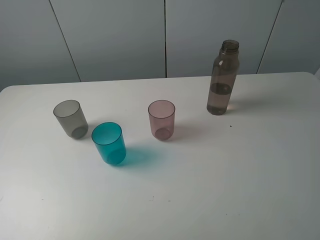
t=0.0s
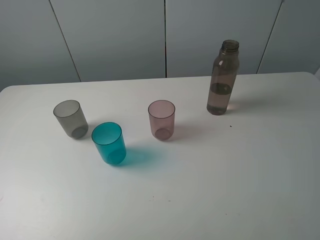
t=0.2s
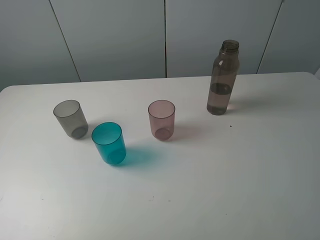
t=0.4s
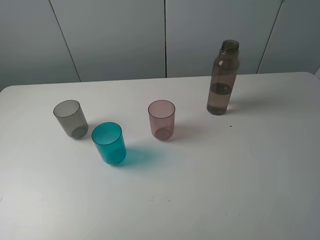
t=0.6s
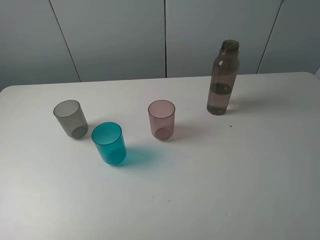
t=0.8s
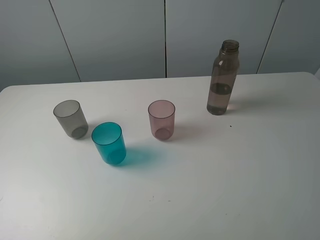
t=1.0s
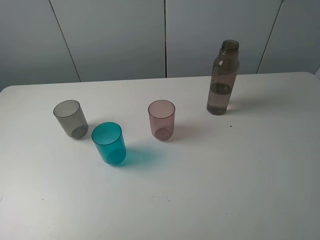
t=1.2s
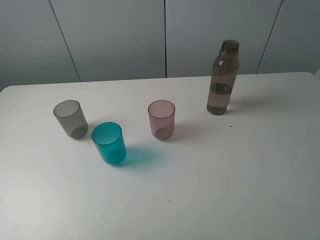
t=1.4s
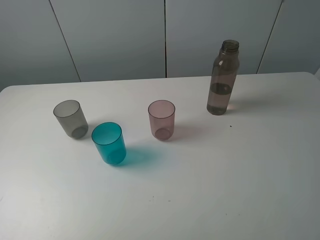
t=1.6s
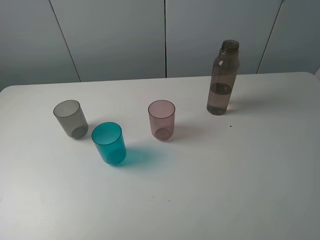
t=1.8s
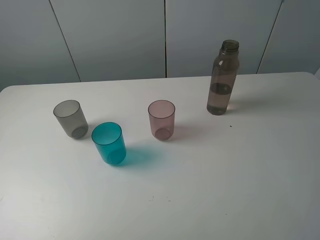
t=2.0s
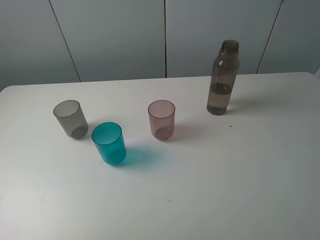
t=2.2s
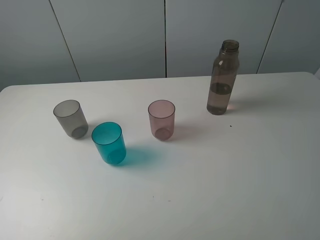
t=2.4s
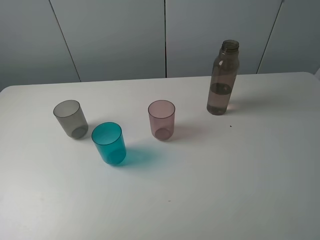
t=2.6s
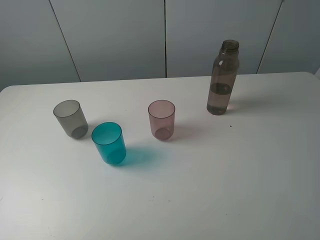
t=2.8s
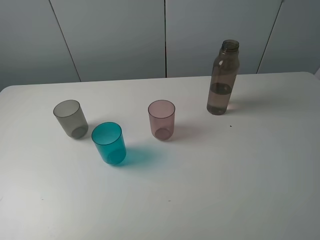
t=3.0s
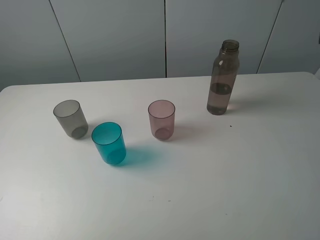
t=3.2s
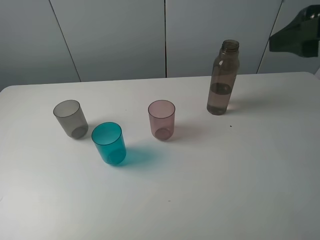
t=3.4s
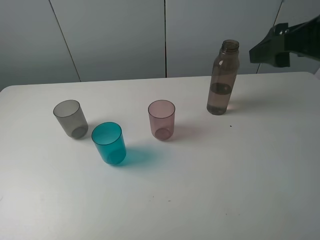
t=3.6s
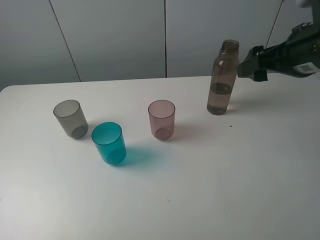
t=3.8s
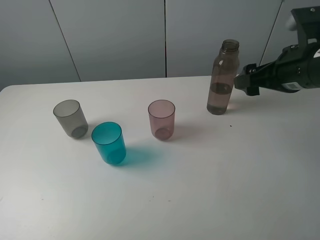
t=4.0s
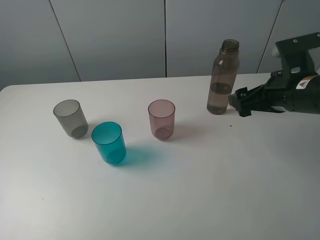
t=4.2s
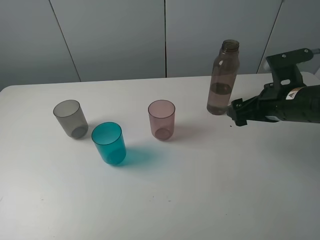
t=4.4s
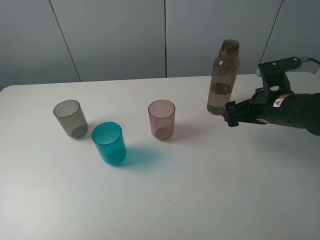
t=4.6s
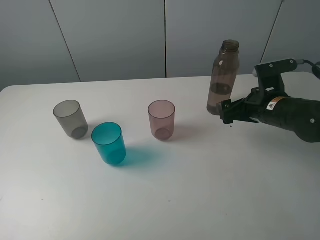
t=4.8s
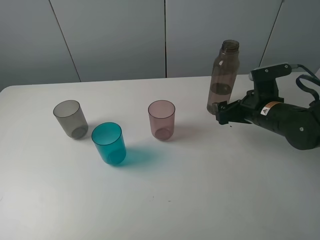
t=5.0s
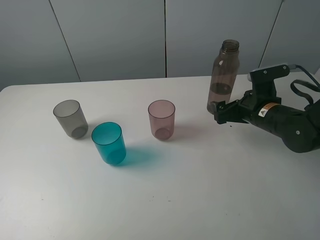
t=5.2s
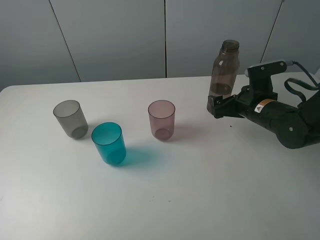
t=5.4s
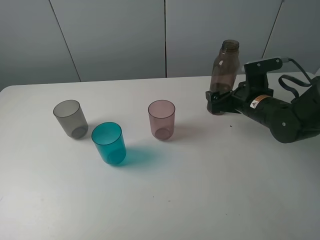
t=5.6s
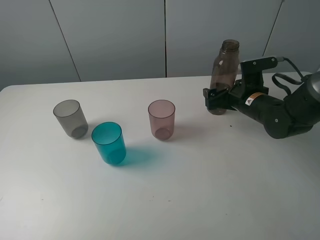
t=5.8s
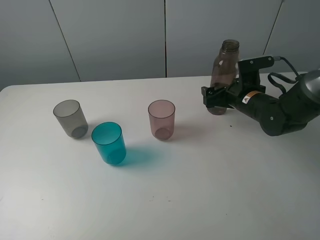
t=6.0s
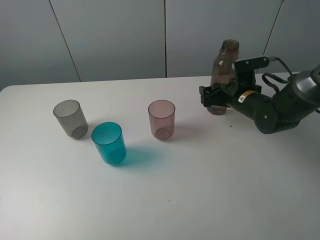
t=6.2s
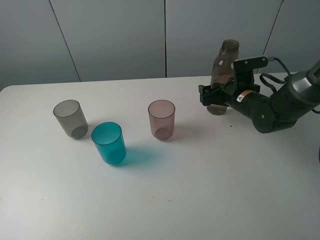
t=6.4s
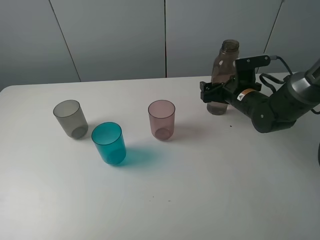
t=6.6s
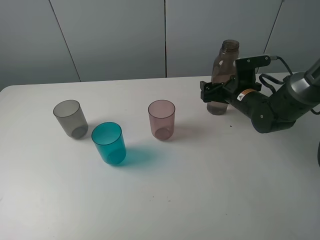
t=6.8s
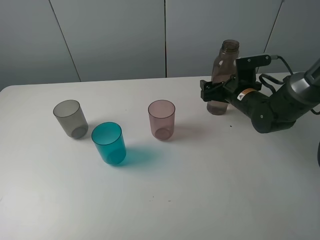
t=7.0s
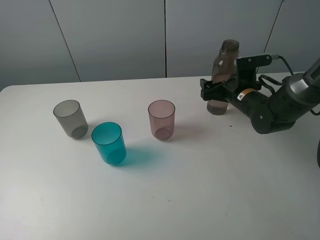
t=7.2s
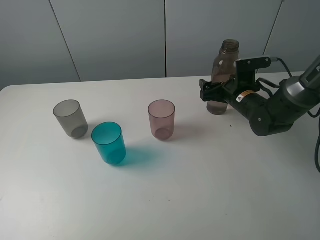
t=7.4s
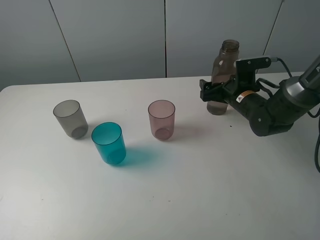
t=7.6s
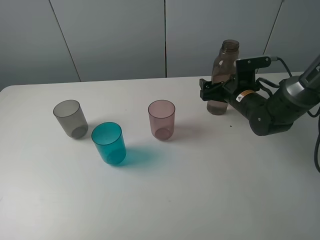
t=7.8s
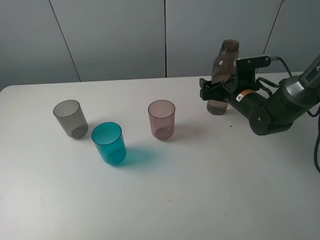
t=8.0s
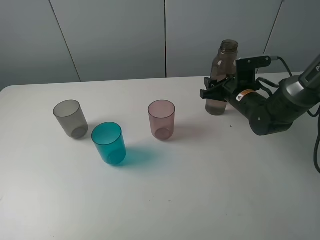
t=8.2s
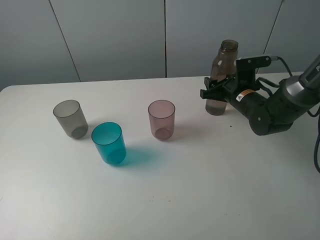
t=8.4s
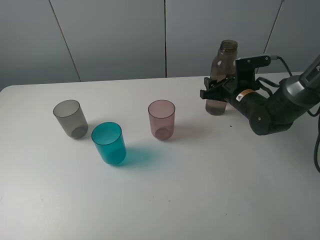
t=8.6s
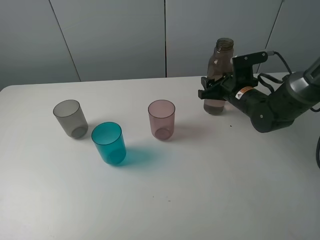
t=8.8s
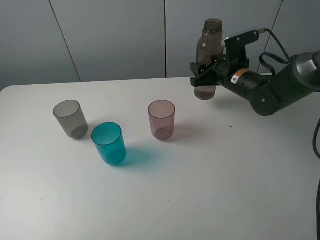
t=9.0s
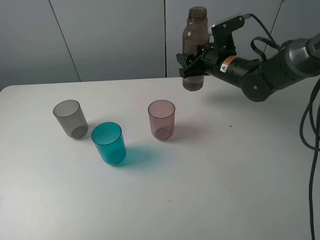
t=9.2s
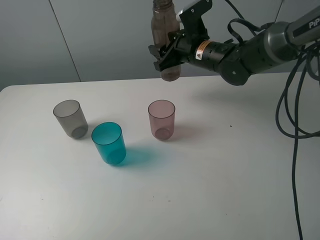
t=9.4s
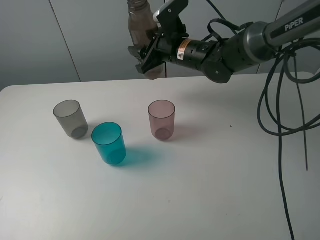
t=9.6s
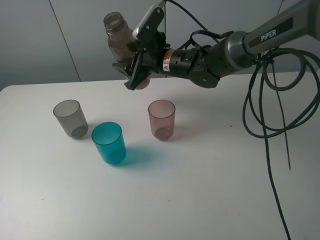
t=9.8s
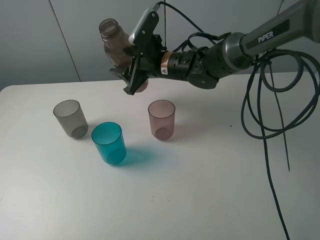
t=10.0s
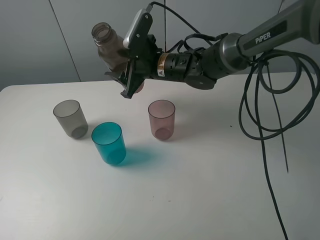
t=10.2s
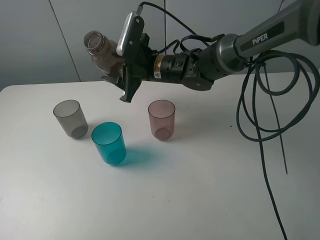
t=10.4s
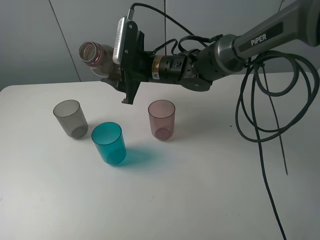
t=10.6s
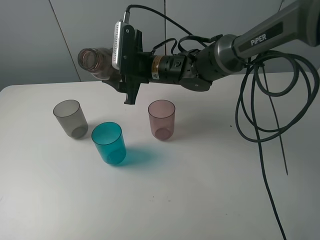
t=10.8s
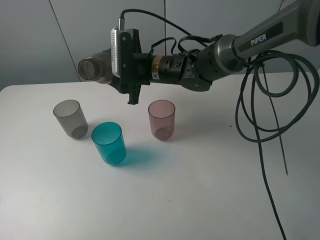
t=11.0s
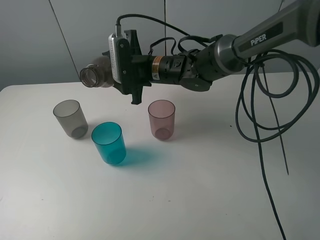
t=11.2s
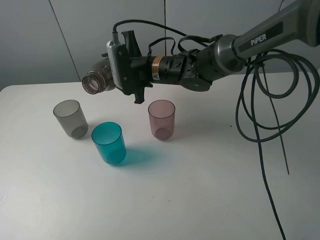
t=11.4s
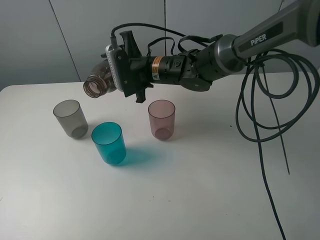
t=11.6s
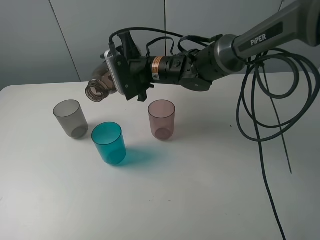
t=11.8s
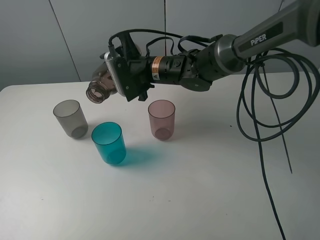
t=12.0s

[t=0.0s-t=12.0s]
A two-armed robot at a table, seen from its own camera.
Task of the whole recording: pick up the bottle filled with water and pour water into the middle cup of the three cups.
Step, t=0.0s to t=8.8s: Grasp the brown bottle with the right gripper.
t=0.0s to t=1.6s: Neither gripper changes place.
t=3.0s to t=4.4s: The right gripper travels downward and forward by approximately 25 cm.
t=4.4s to t=6.0s: The right gripper is displaced forward and downward by about 10 cm.
t=6.0s to t=7.6s: The grippers move only a little.
t=7.6s to t=9.0s: The right gripper heads upward, covering approximately 5 cm, and closes its fingers.
t=9.0s to t=10.4s: The right gripper moves to the left, some 15 cm.

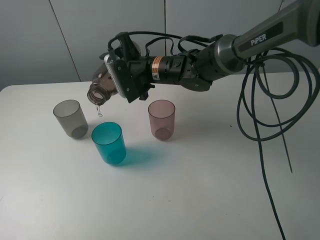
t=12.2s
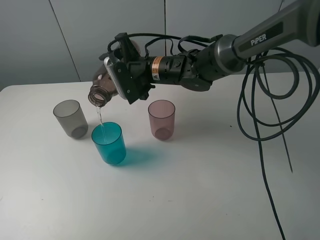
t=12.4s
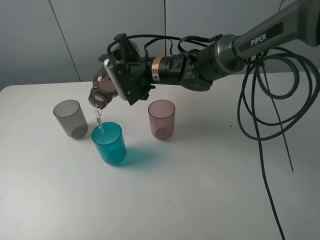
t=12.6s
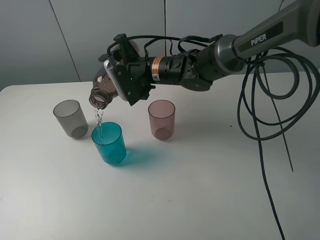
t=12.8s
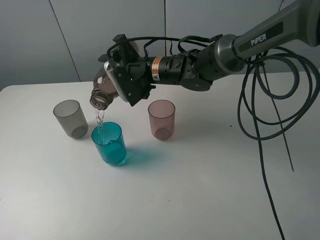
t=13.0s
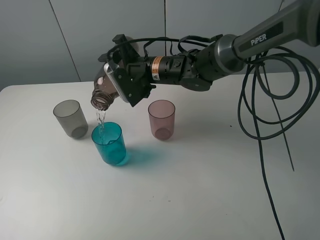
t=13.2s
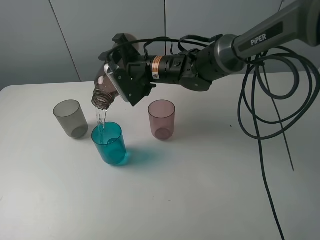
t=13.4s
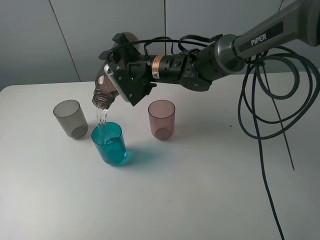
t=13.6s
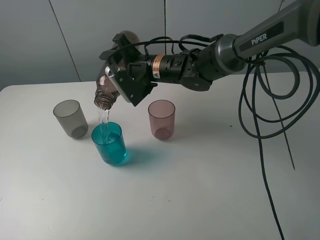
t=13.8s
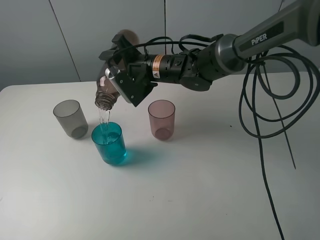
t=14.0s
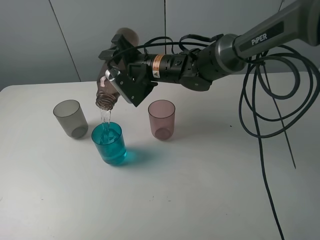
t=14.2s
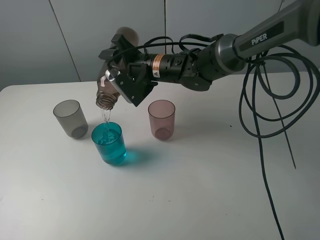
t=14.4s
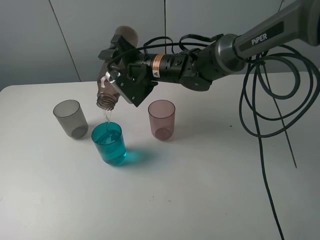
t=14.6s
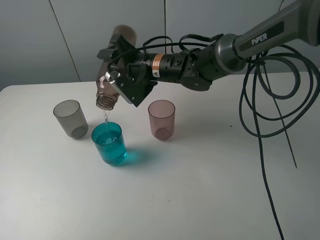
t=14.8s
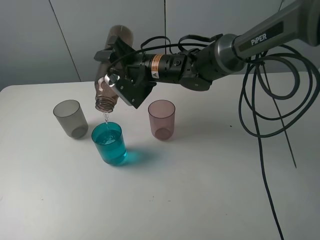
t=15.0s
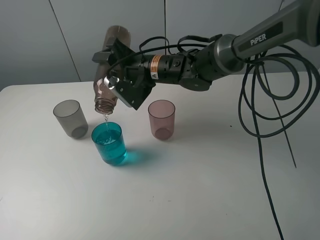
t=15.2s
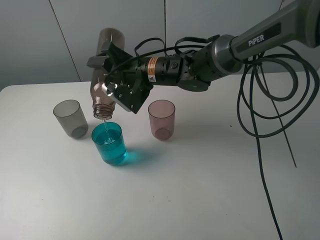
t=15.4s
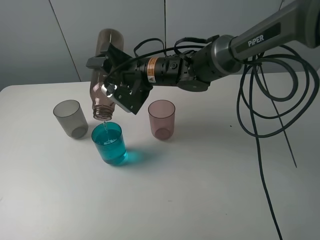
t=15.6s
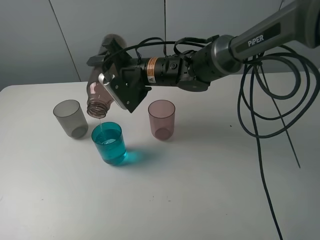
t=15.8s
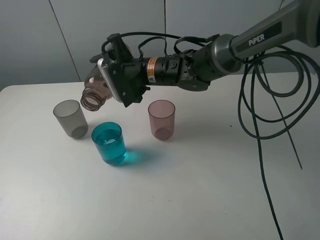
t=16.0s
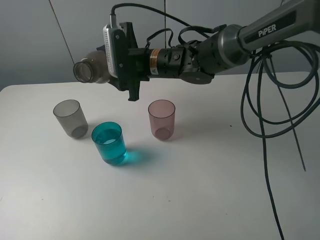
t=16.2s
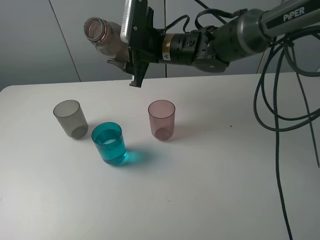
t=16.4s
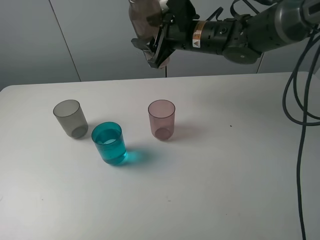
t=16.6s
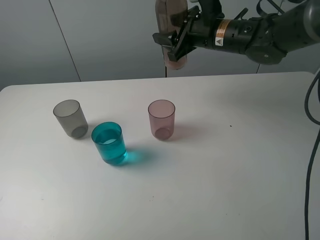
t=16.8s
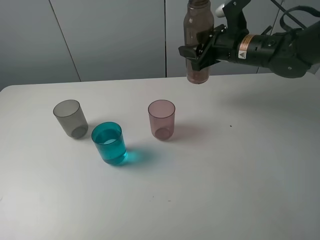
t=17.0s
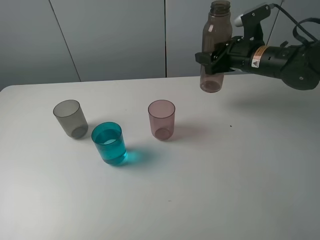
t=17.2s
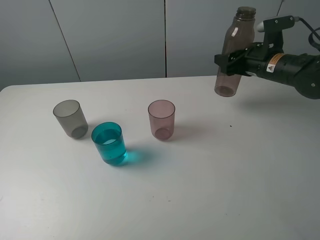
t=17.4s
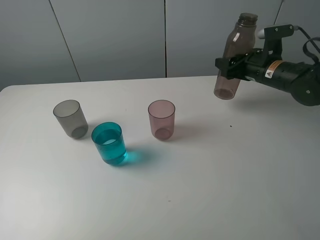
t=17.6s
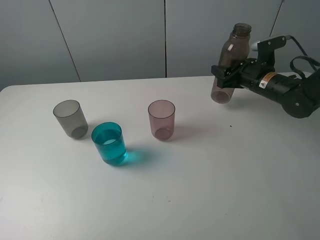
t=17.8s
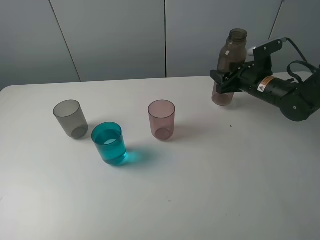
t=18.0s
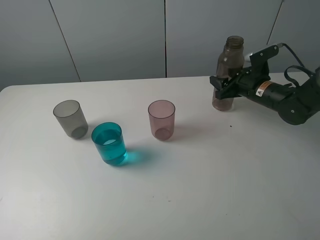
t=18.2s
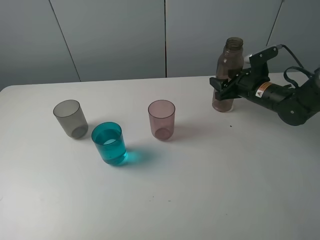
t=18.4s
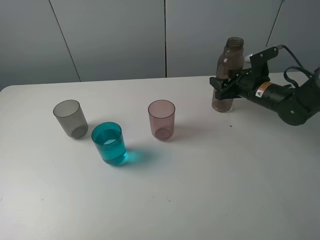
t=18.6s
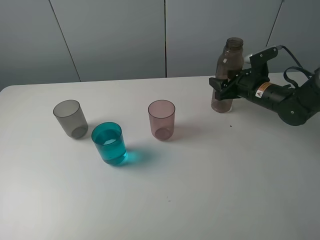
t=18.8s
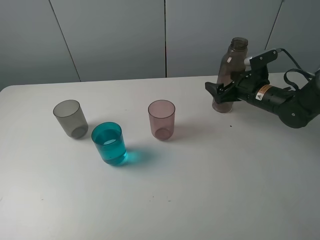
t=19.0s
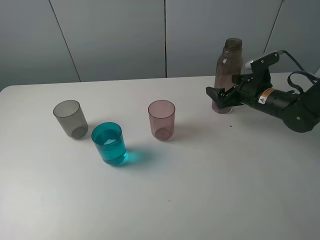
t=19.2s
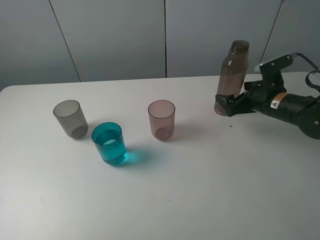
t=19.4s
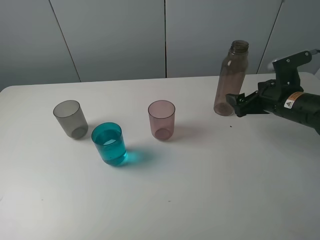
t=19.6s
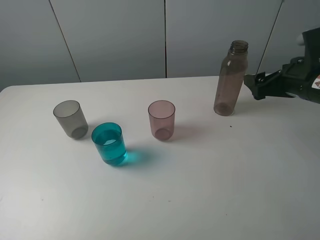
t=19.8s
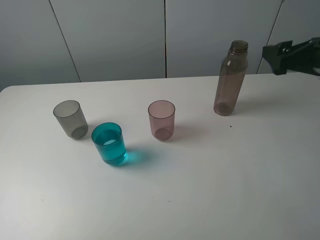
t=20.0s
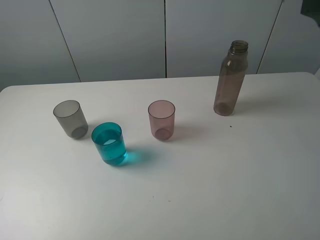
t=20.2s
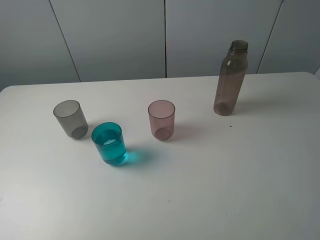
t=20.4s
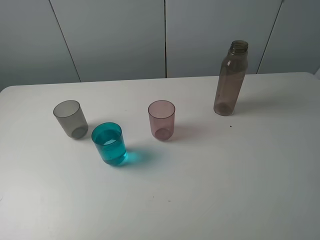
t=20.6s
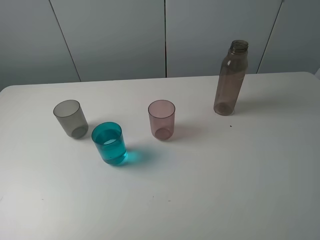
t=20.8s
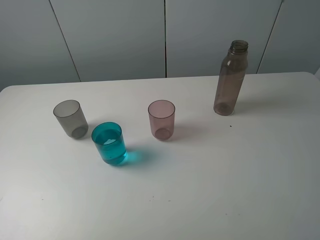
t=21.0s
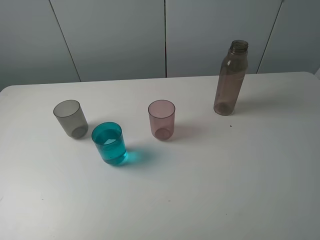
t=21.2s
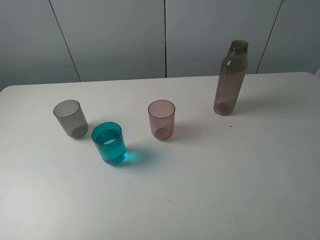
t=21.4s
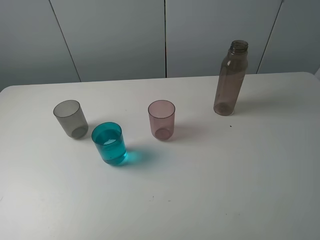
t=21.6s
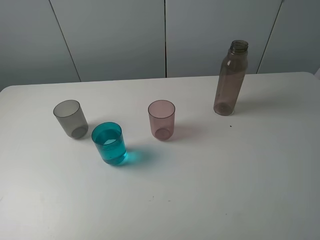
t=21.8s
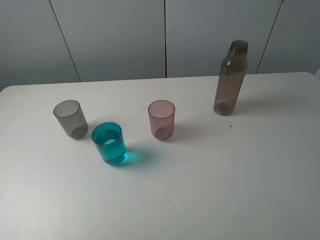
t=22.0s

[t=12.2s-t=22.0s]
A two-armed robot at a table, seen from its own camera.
Task of the whole recording: pick up the bottle filled with water and pour water into the middle cup of the three cups.
Step, t=12.2s to t=16.0s: Pour water from brown bottle to blue cup with the right gripper.
Step, t=16.2s to t=19.6s: Place the brown bottle with the right gripper.
t=12.2s to t=13.6s: The grippers move only a little.
t=13.6s to t=15.0s: The grippers move only a little.
t=15.0s to t=16.4s: The right gripper moves about 5 cm.
t=16.4s to t=17.8s: The right gripper goes about 25 cm to the right and downward.
t=17.8s to t=19.2s: The right gripper opens its fingers.
t=19.2s to t=20.6s: The right gripper travels upward and backward by roughly 35 cm.
